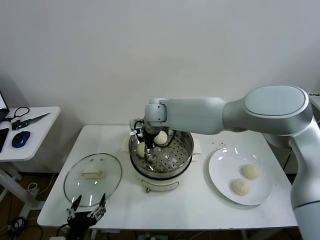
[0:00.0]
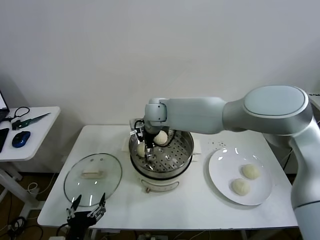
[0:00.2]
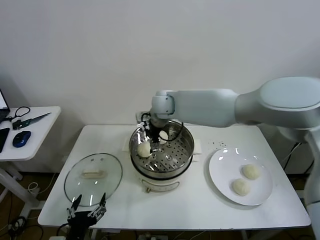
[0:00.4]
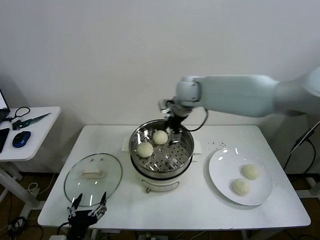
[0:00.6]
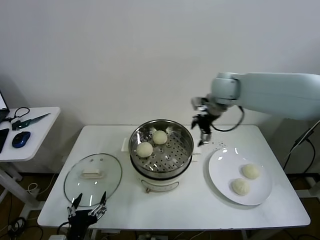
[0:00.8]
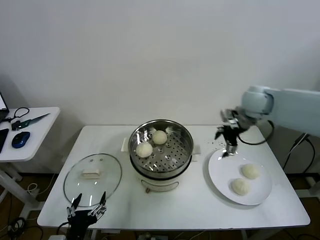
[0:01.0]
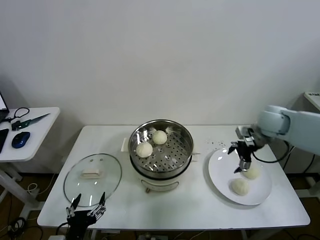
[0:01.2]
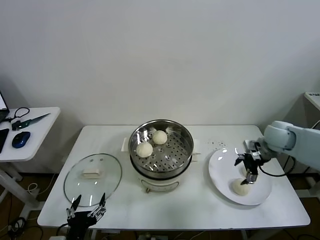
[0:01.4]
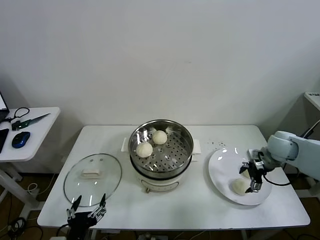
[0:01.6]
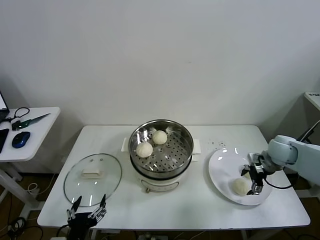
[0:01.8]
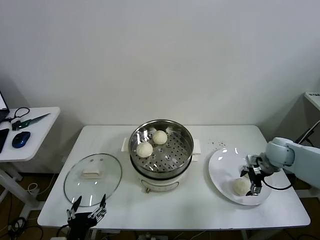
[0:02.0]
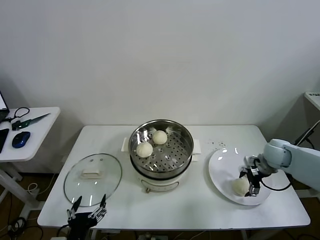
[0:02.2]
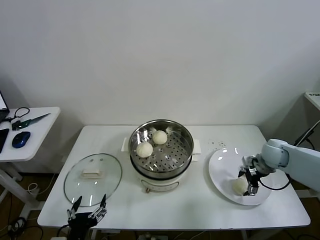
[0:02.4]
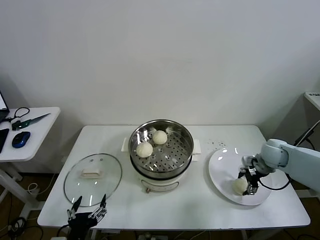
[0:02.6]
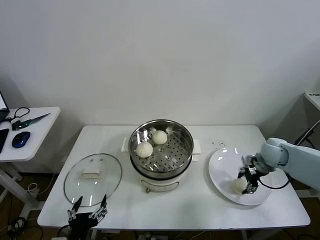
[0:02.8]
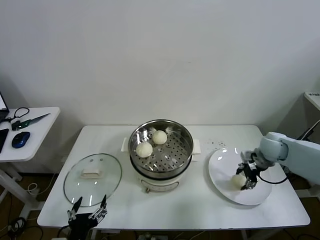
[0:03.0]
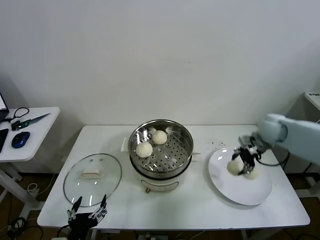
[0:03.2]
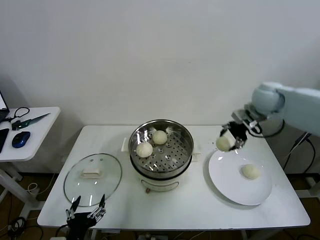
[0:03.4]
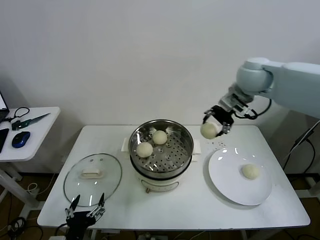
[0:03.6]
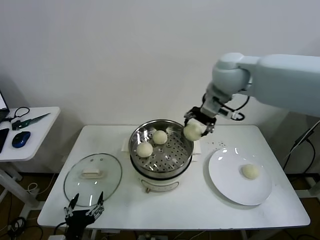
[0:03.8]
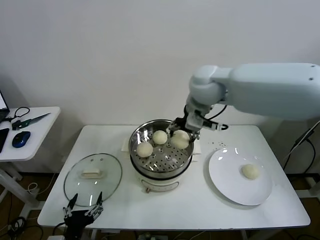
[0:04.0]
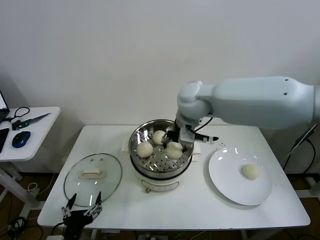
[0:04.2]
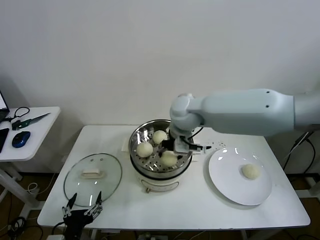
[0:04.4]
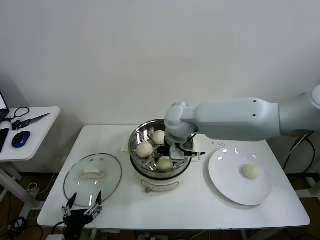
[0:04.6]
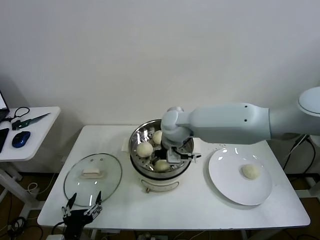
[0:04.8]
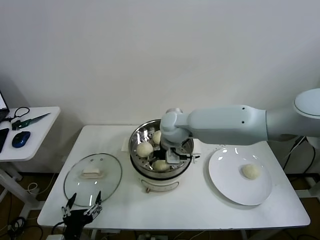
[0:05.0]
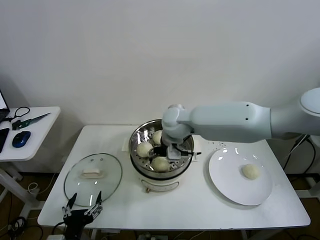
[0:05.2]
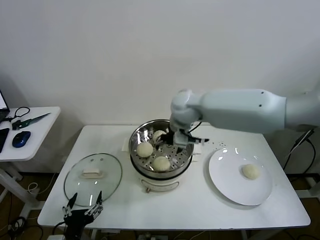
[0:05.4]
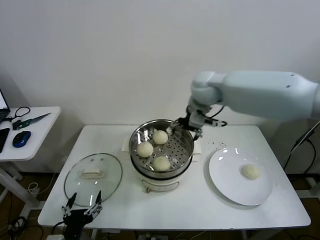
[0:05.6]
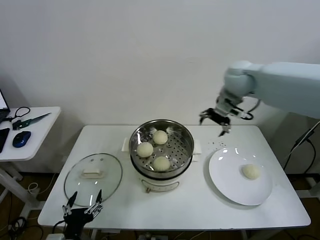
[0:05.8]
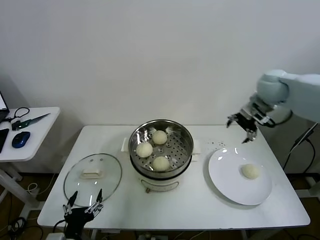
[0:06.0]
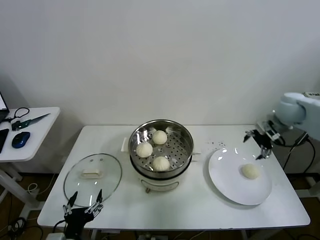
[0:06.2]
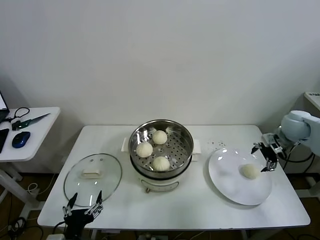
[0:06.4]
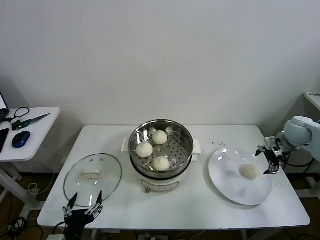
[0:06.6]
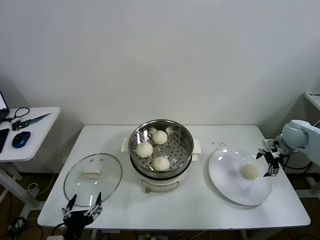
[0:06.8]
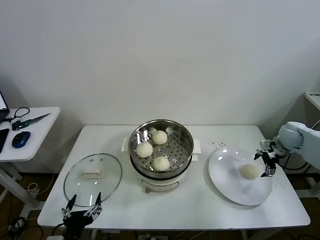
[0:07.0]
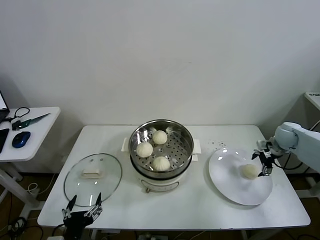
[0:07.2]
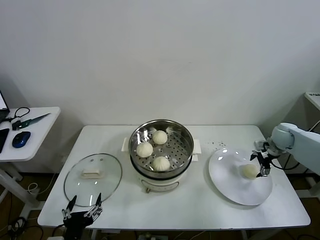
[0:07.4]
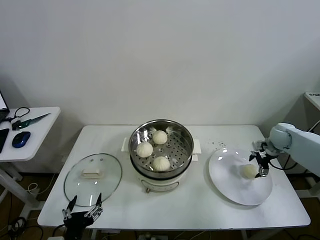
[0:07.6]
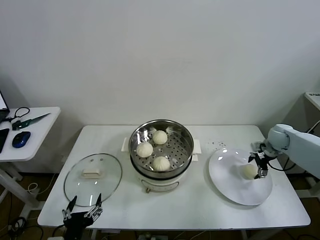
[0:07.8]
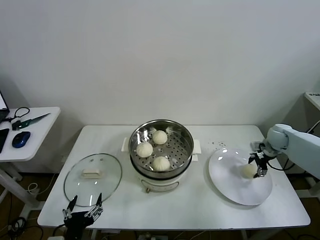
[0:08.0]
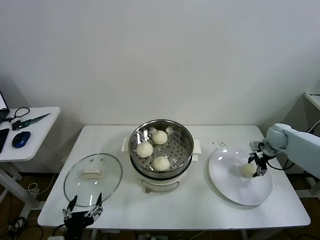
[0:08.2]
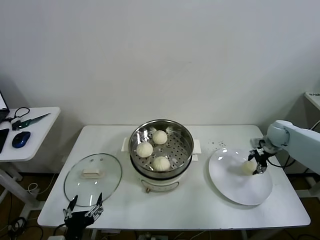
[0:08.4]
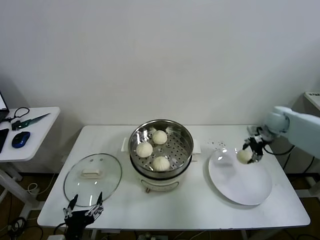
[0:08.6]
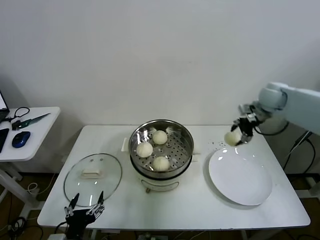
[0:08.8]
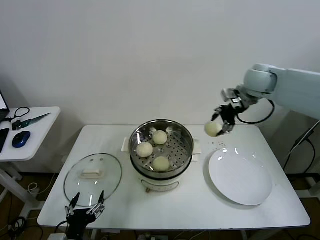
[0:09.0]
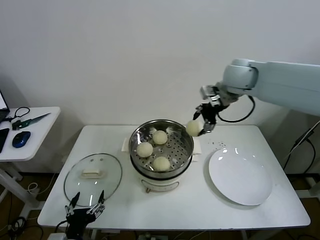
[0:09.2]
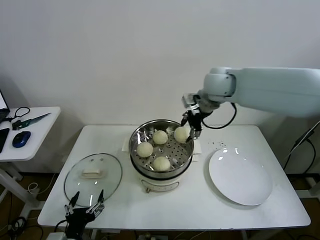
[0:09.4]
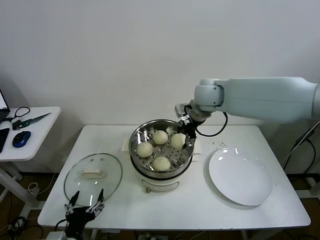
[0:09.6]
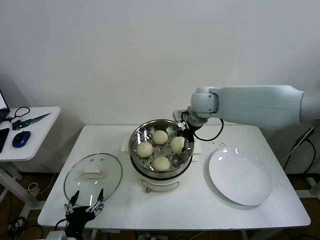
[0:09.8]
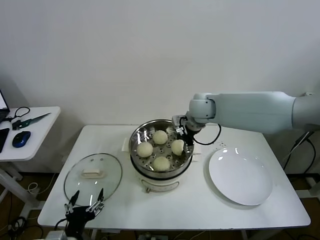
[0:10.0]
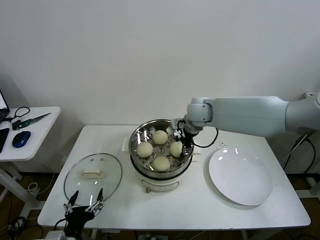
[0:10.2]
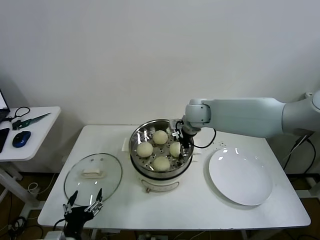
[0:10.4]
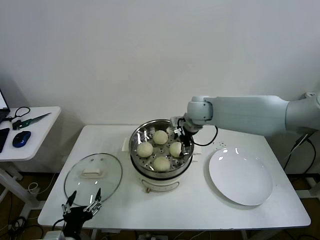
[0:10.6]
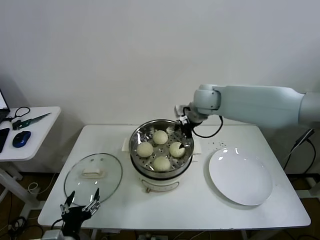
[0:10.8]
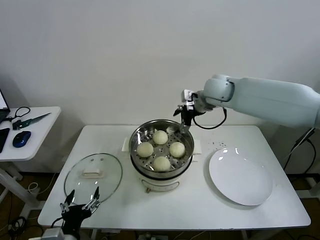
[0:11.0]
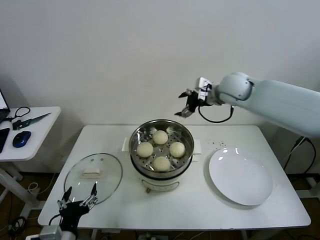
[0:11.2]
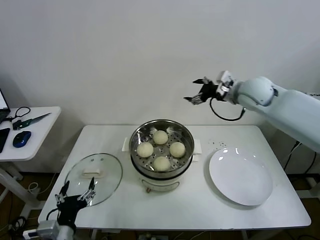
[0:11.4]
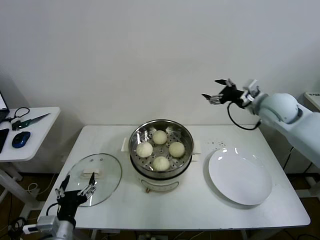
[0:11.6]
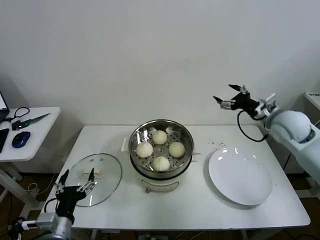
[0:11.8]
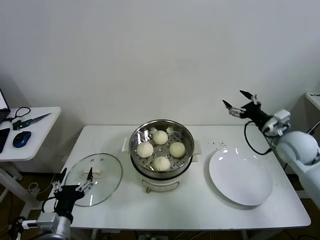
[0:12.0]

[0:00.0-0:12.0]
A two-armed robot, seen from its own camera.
Task of the whole recording: take steamed baozi put them in steamer then cover it.
Step, 0:00.4 to 0:02.6: Grasp the baozi in the plate with right gripper.
Step, 0:02.8 to 0:05.2: Place the baozi on the steamer with right gripper.
Step, 0:05.4 to 0:08.2: Grasp the baozi in the plate with right gripper.
Step, 0:08.4 to 0:10.4: Place the baozi on the steamer with right gripper.
0:00.0 to 0:01.6: The right gripper moves to the right, approximately 40 cm, and opens its fingers.
0:01.6 to 0:03.0: The right gripper closes.
0:03.0 to 0:04.4: The right gripper goes roughly 35 cm to the left and upward.
0:04.4 to 0:06.0: The right gripper heads to the right, covering some 30 cm, and opens up.
0:06.0 to 0:07.6: The right gripper is displaced downward and to the right by approximately 25 cm.
0:07.6 to 0:09.0: The right gripper moves upward and to the left, approximately 30 cm, and closes.
0:09.0 to 0:10.4: The right gripper is displaced to the left and downward by some 20 cm, and opens.
0:10.4 to 0:12.0: The left gripper moves approximately 5 cm. The right gripper travels to the right and backward by some 30 cm.

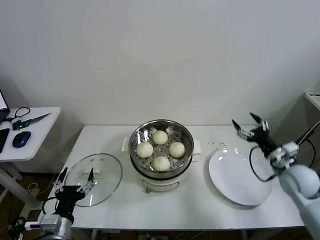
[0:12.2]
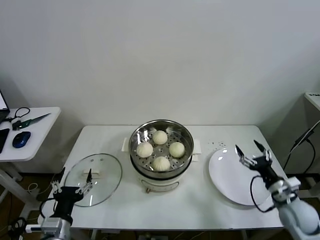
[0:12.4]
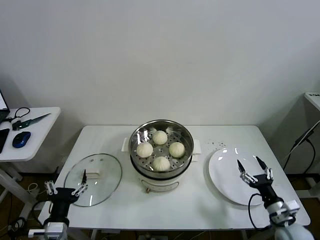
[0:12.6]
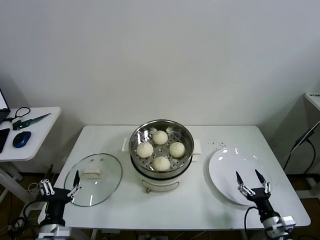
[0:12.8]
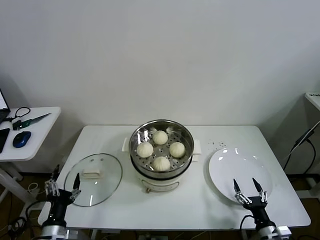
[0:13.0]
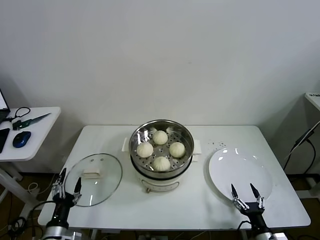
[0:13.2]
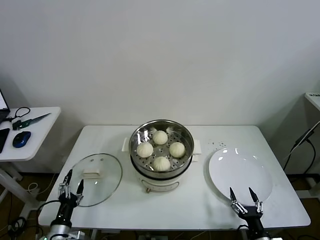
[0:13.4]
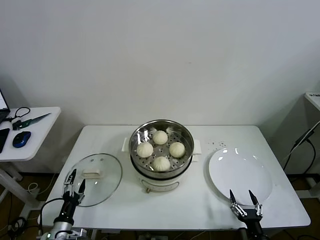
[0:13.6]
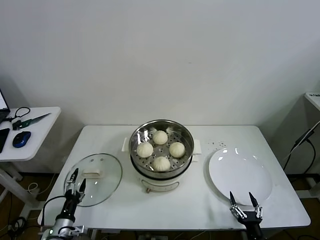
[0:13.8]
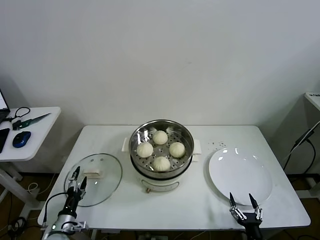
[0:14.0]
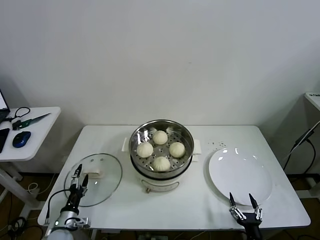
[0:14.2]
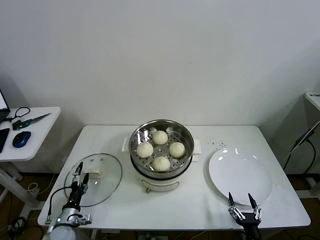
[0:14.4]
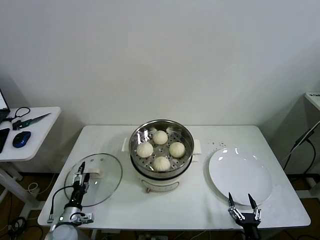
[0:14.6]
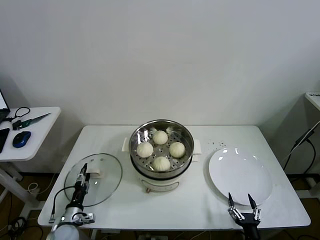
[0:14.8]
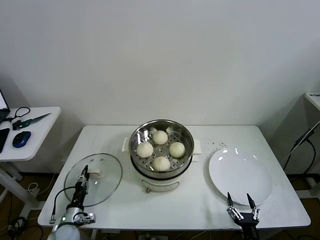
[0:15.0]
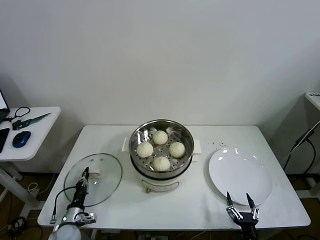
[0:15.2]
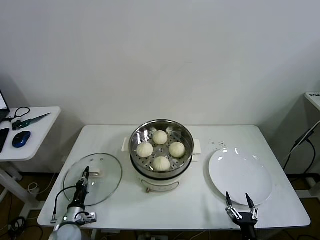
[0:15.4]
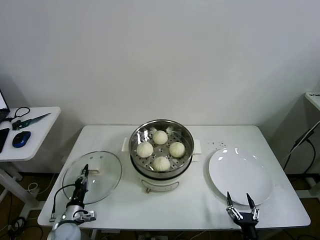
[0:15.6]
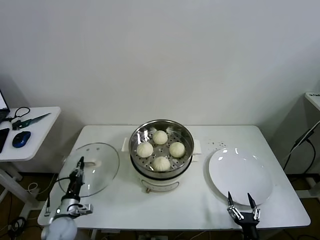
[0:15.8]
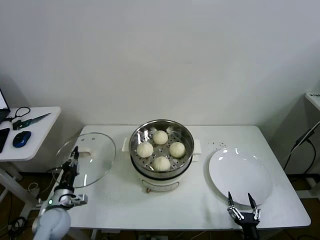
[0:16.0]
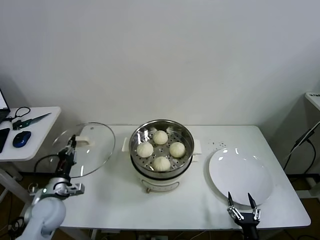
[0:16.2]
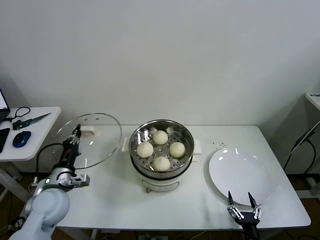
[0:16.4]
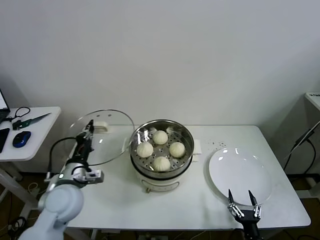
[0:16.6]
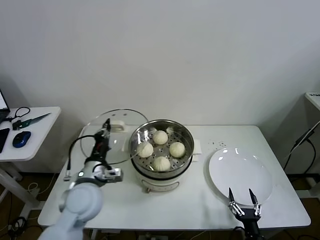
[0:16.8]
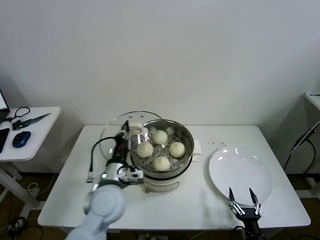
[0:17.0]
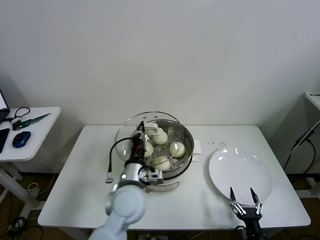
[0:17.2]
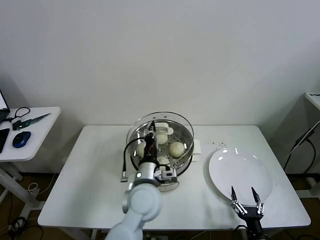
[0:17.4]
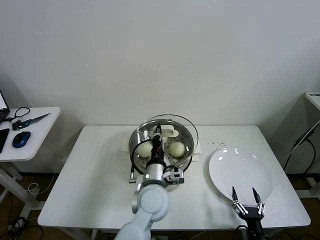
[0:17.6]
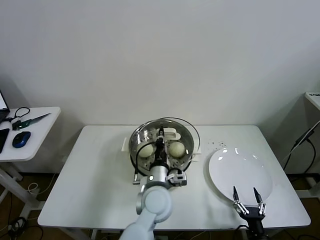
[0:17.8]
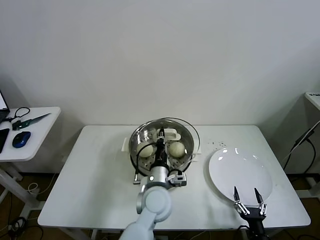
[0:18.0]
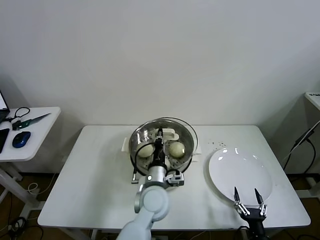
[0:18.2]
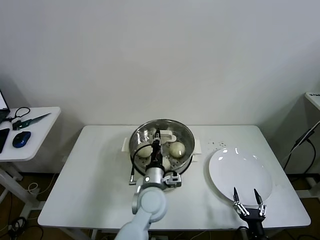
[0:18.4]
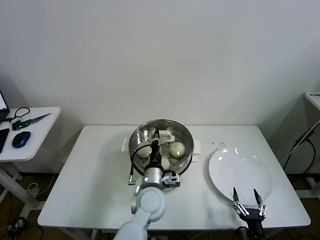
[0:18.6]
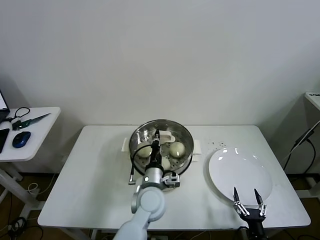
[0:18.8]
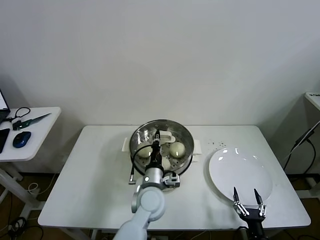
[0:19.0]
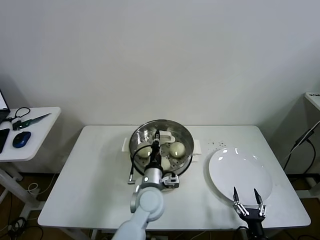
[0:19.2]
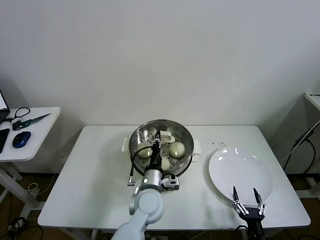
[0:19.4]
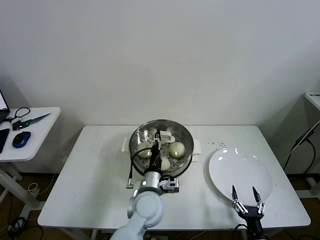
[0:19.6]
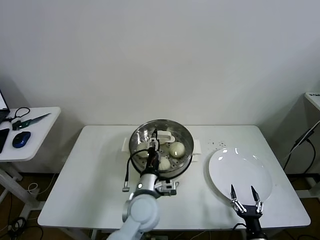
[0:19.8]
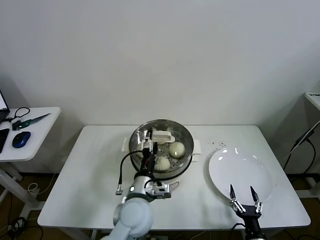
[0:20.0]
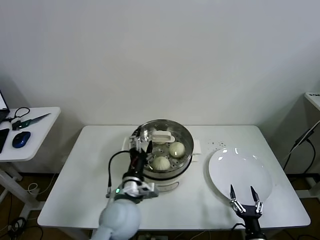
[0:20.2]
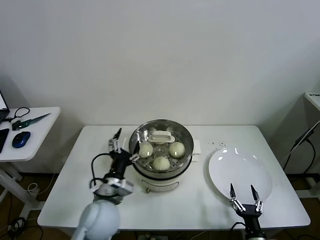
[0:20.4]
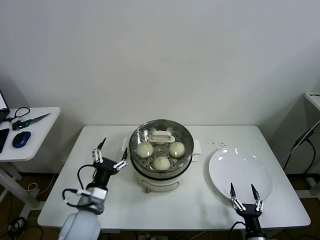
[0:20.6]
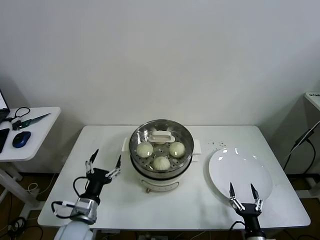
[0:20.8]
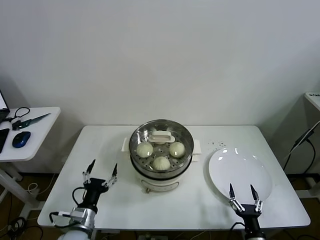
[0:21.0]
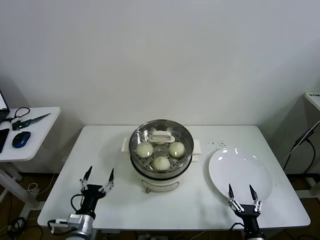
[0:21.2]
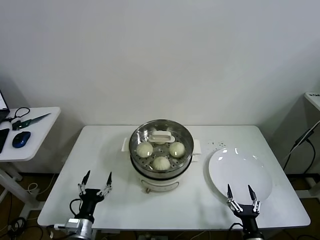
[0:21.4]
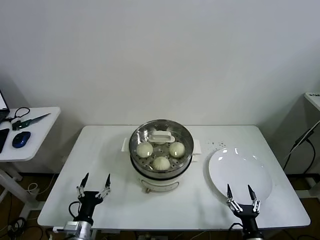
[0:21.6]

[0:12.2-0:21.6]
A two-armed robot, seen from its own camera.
Task of the whole recording: take steamed baozi put them in steamer then cover it.
Step, 0:12.2 to 0:15.2: Grasp the pot lid with left gripper.
Step, 0:15.6 to 0:19.8: Place the pot lid on the steamer with left gripper.
0:12.2 to 0:13.8: The left gripper travels downward and to the left by roughly 20 cm, while the right gripper heads backward and downward, covering roughly 30 cm.
0:13.8 to 0:15.4: The left gripper heads forward, covering about 5 cm, and closes.
0:15.4 to 0:17.0: The left gripper shifts some 30 cm upward and to the right.
0:17.0 to 0:18.4: The left gripper shifts approximately 15 cm to the right and downward.
0:18.4 to 0:20.0: The left gripper changes place by roughly 5 cm, and opens its fingers.
0:20.0 to 0:21.6: The left gripper heads to the left, downward and backward, covering about 25 cm.
